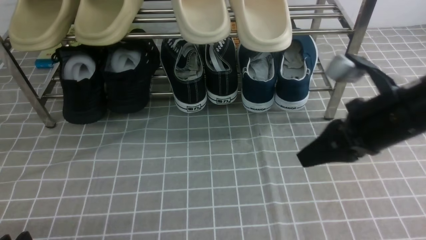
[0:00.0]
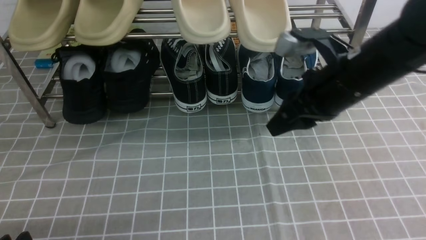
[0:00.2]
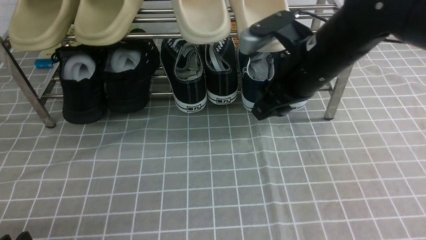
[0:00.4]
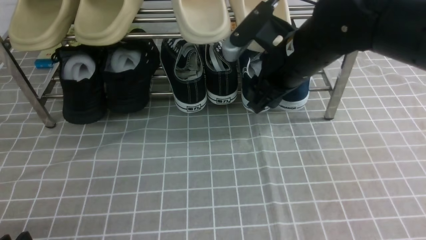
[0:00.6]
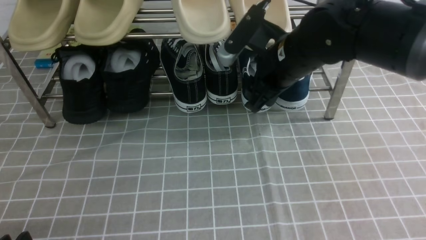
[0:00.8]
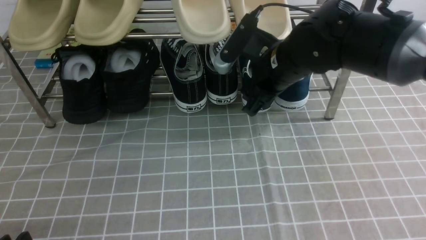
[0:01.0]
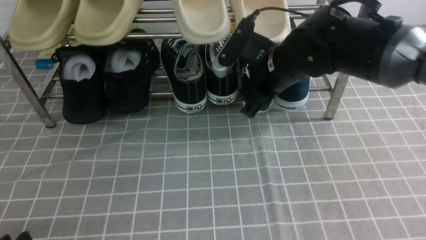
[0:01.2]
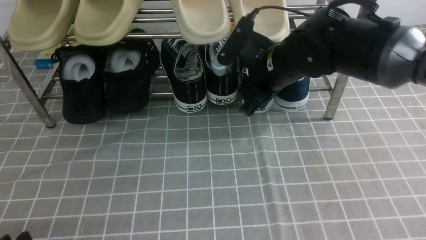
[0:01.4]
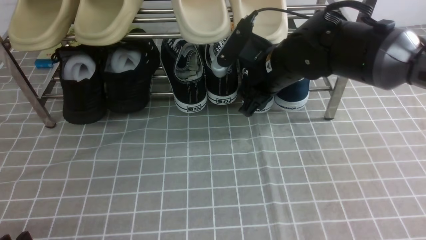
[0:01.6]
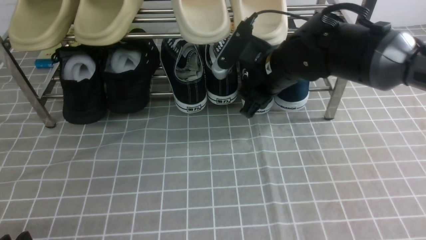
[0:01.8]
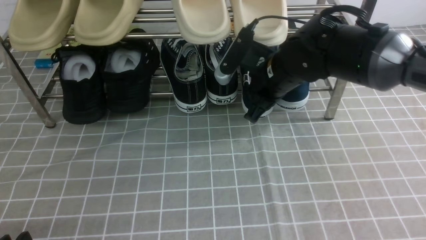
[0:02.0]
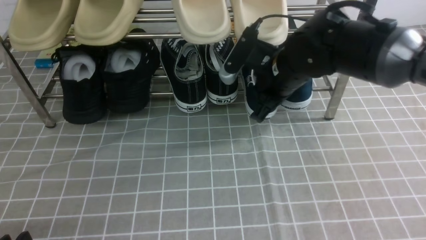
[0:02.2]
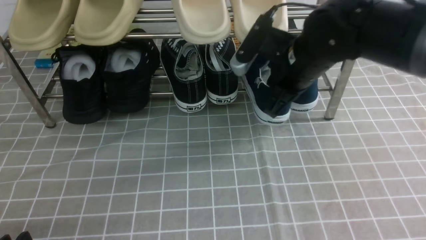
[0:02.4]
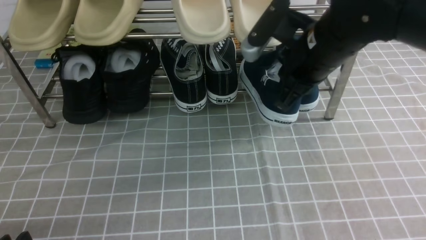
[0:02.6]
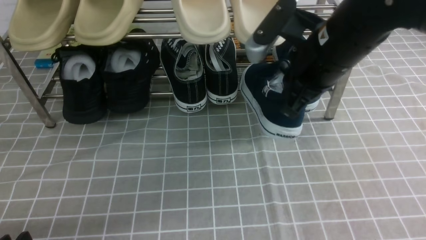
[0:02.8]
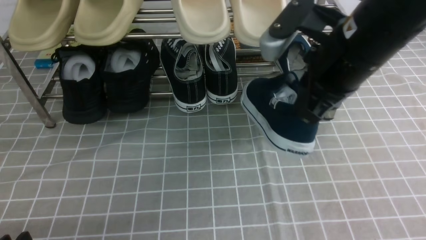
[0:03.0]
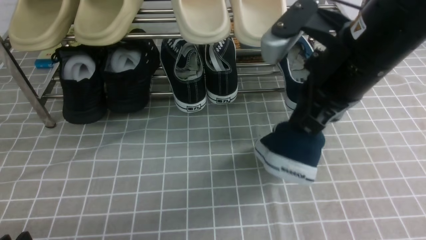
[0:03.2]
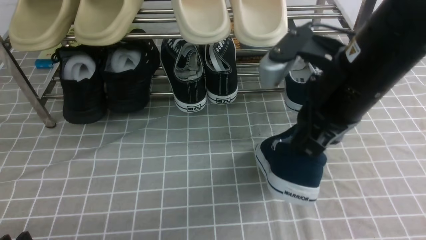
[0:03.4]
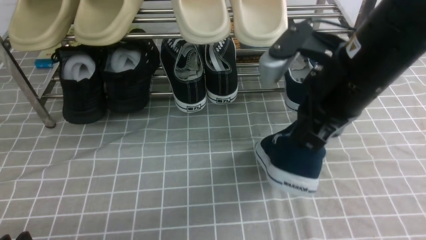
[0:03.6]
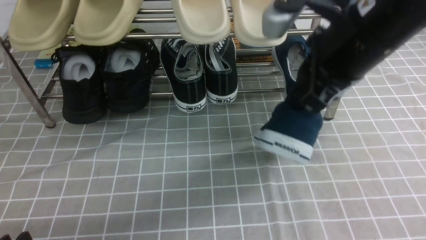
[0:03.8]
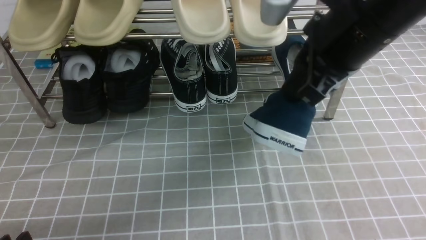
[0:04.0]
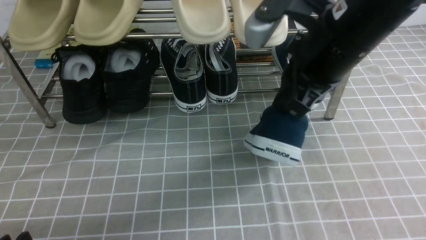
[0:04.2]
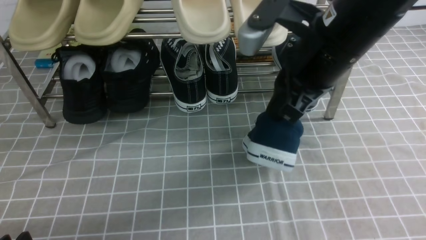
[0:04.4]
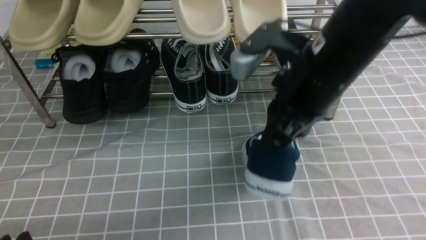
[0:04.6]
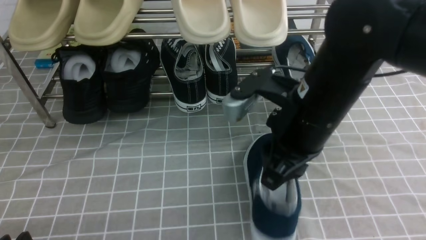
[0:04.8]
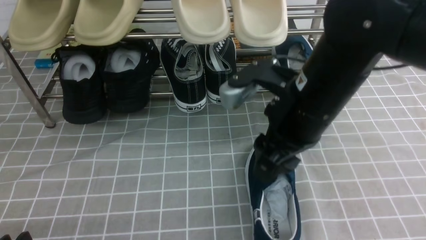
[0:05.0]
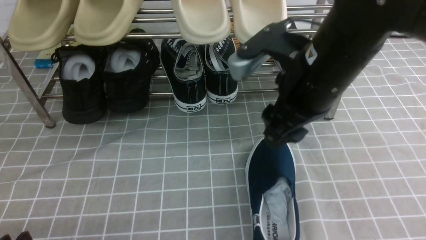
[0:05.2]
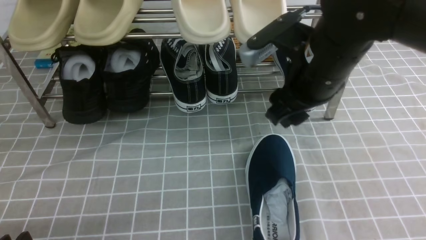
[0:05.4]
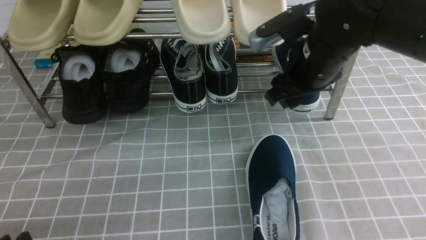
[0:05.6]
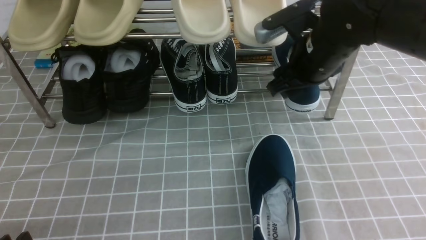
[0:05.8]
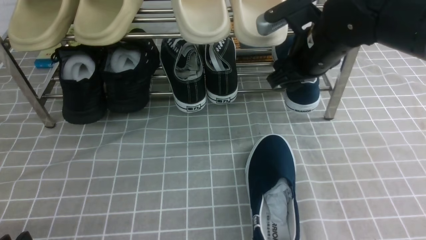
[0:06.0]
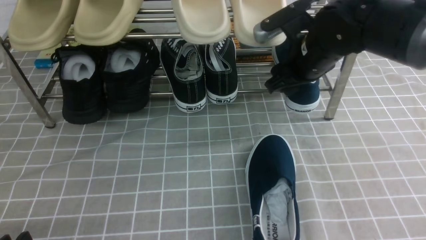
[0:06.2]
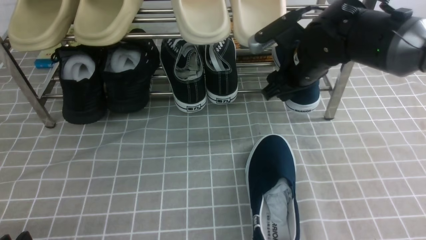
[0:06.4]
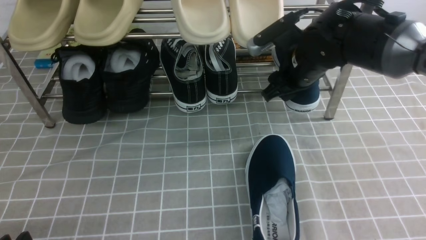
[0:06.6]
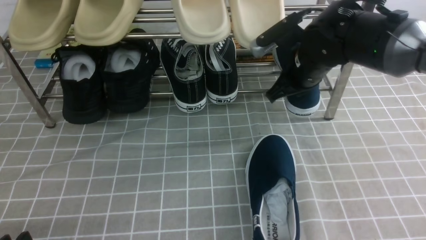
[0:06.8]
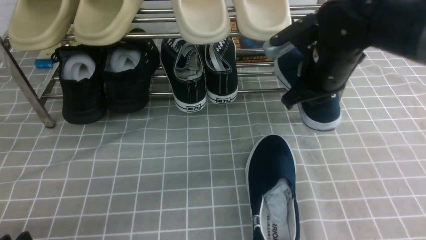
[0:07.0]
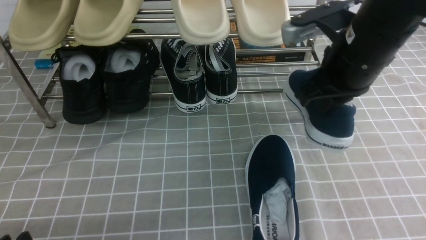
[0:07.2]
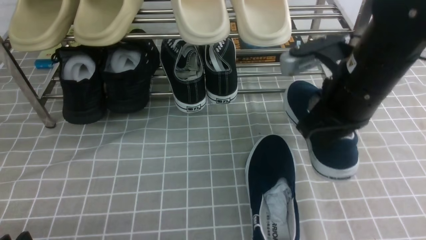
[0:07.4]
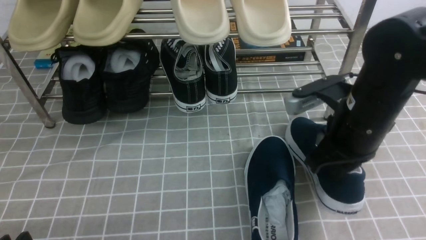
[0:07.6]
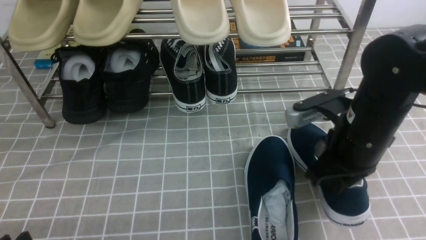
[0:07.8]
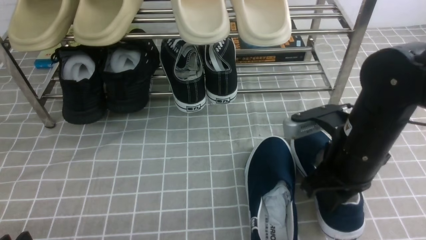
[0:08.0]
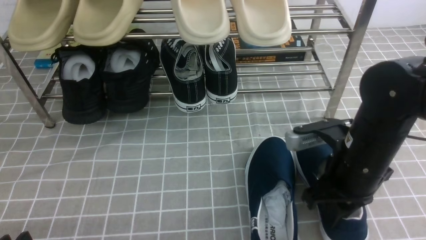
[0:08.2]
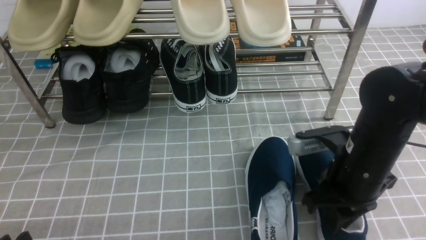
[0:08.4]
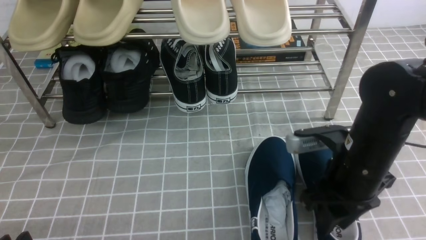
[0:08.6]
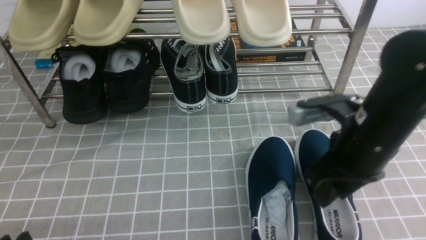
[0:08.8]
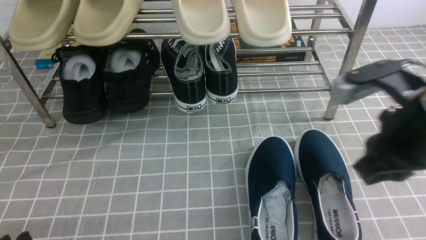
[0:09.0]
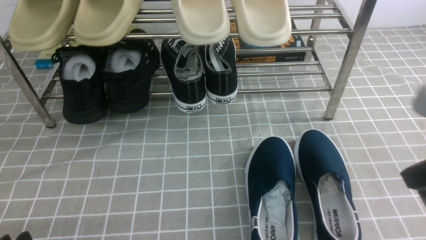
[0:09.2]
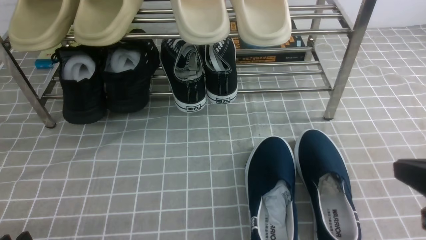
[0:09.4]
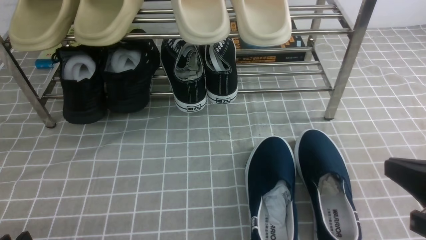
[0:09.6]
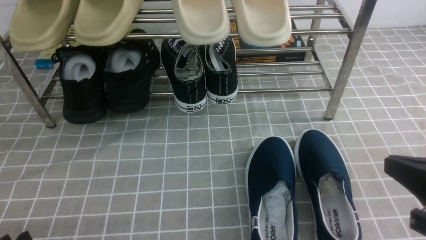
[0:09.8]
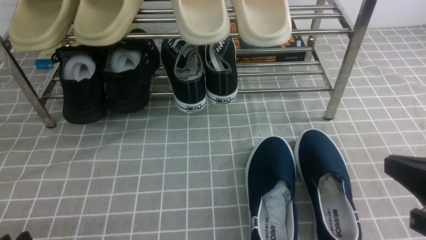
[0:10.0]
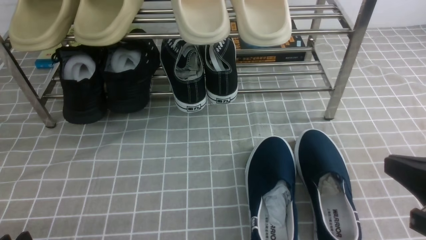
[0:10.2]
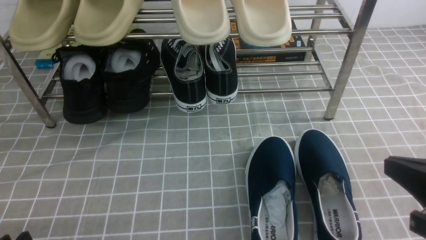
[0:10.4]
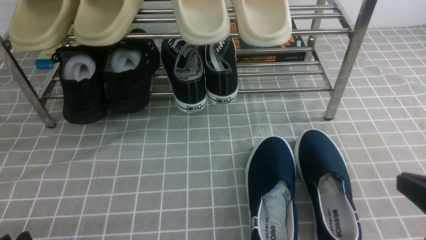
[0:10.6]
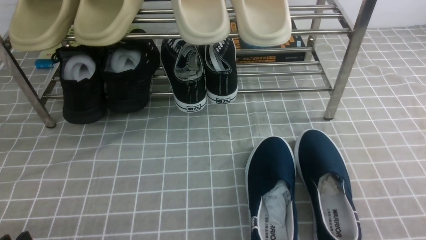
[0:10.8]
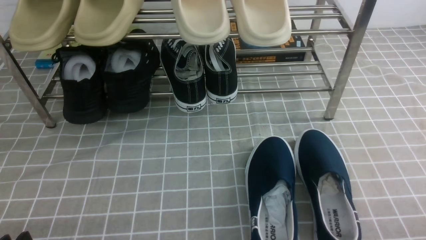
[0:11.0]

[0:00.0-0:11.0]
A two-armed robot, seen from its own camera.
Step, 0:00.0 to 0:02.0: use the right arm to clamp a shoe on the right side of the shoe rack.
Step, 0:02.2 to 0:05.4: use the right arm to take out the clamped shoe from the shoe rack and put it down.
Step, 0:05.6 to 0:07.0: use the right arm to clamp a shoe on the right side of the shoe rack.
Step, 0:07.2 to 0:08.8: use the right arm to take out the clamped shoe from the shoe rack and put it down.
0:00.0 to 0:01.6: The right gripper shifts roughly 15 cm forward and to the left, and opens up.
0:01.6 to 0:03.2: The right gripper goes approximately 15 cm backward and upward, and closes its fingers.
0:03.2 to 0:04.8: The right gripper shifts by roughly 5 cm, and opens up.
0:04.8 to 0:06.2: The right gripper shifts roughly 15 cm forward, and opens up.
0:06.2 to 0:07.8: The right gripper travels backward by roughly 15 cm, and closes.
0:07.8 to 0:09.4: The right gripper shifts approximately 15 cm backward and to the right, and opens and closes again.
0:09.4 to 0:11.0: The right gripper moves downward, to the right and backward, roughly 15 cm.

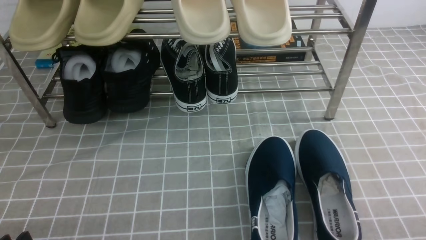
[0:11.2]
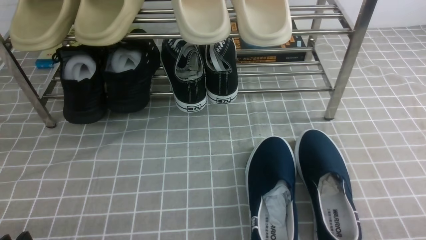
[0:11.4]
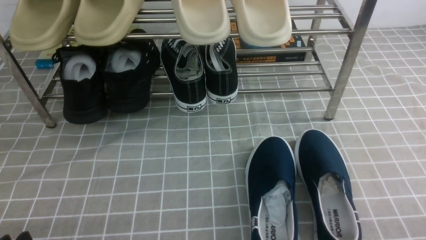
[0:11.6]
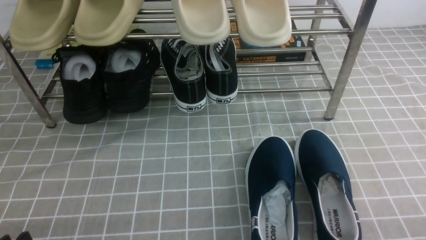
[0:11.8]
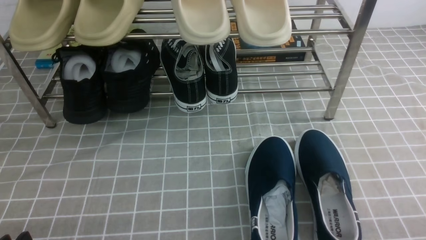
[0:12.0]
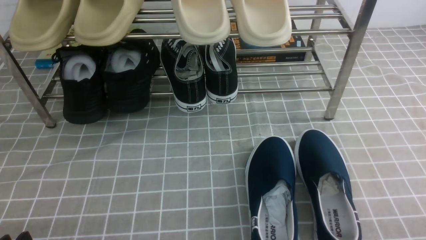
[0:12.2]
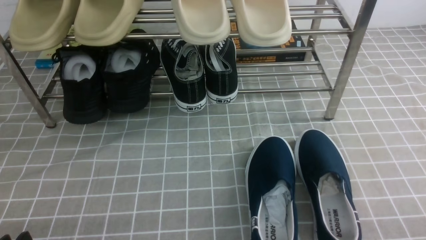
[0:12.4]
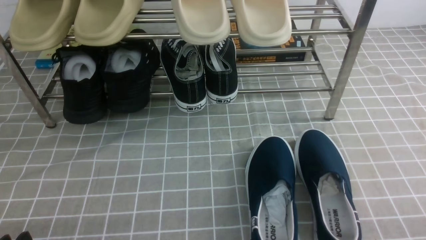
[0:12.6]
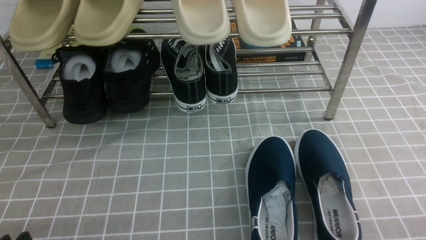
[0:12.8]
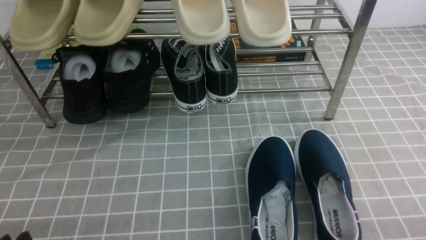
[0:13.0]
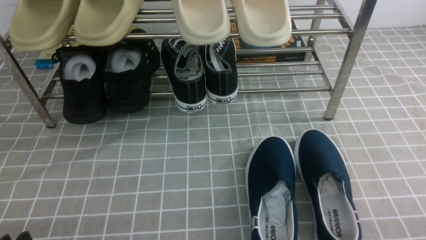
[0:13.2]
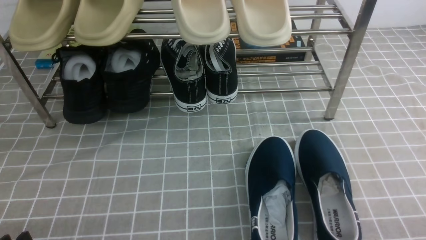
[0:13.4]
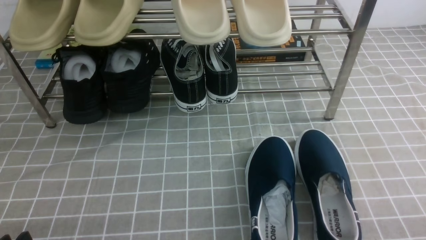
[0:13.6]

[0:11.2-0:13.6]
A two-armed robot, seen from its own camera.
0:11.2 to 0:13.6: The two grippers keep their place.

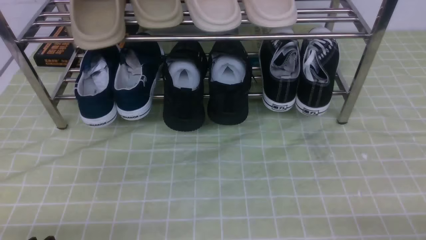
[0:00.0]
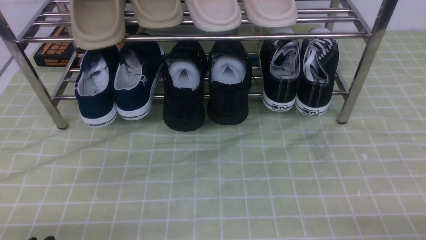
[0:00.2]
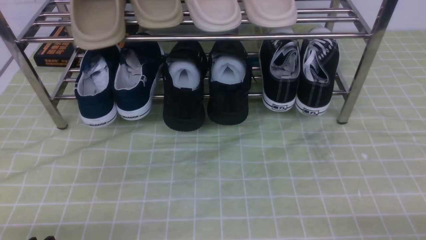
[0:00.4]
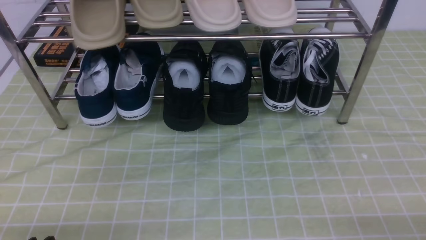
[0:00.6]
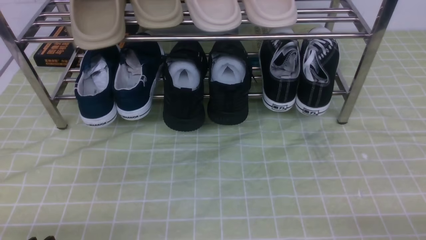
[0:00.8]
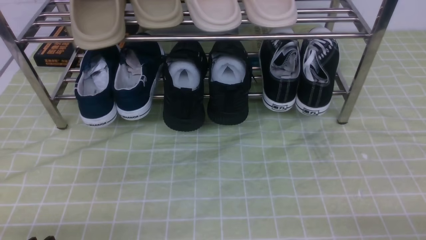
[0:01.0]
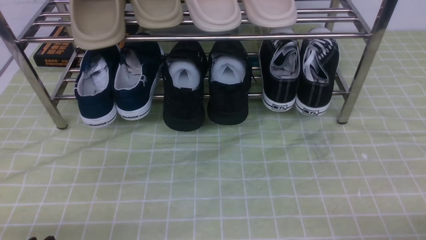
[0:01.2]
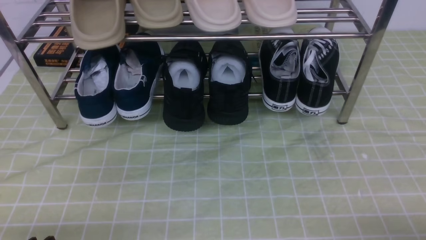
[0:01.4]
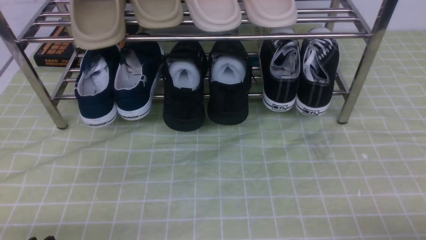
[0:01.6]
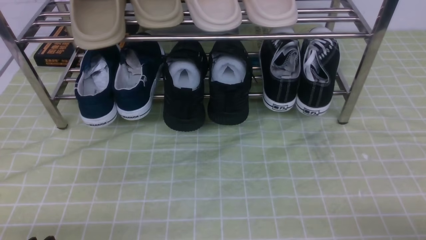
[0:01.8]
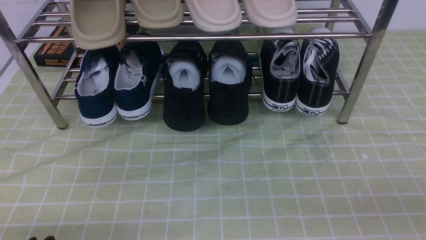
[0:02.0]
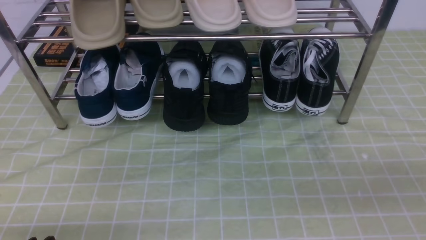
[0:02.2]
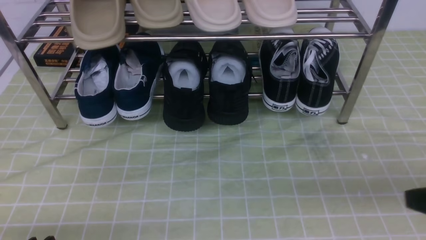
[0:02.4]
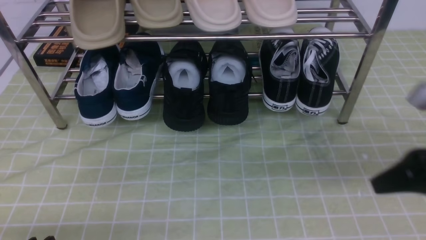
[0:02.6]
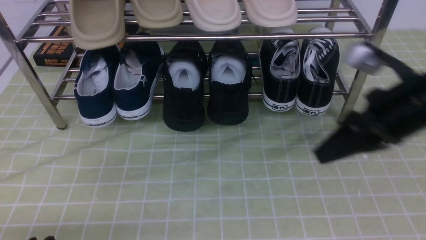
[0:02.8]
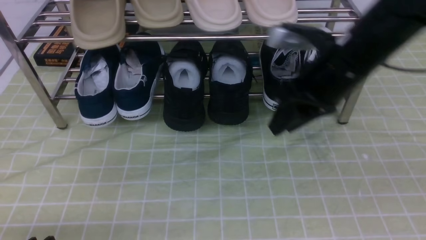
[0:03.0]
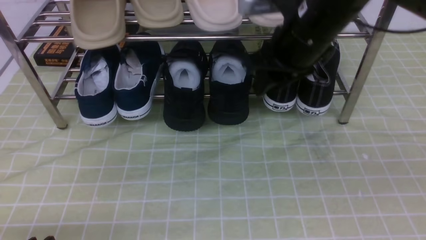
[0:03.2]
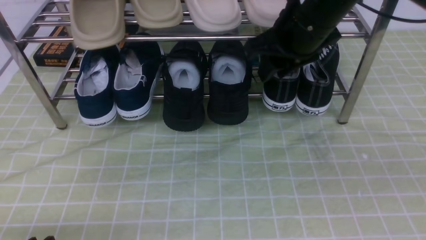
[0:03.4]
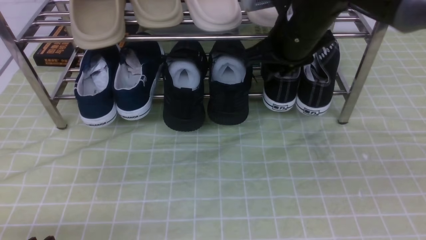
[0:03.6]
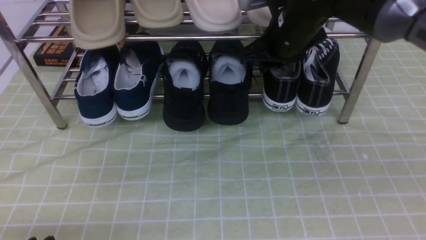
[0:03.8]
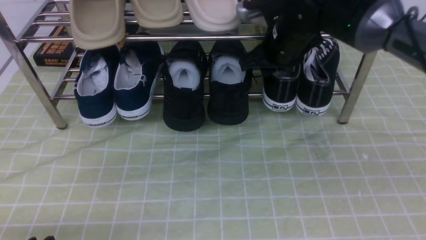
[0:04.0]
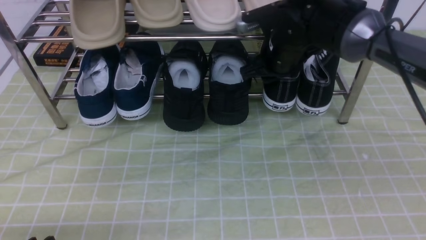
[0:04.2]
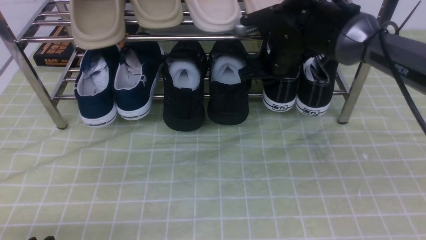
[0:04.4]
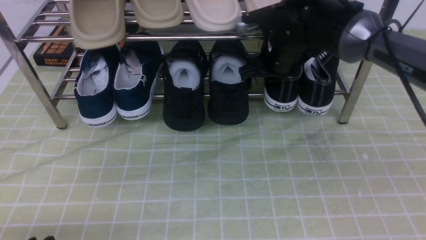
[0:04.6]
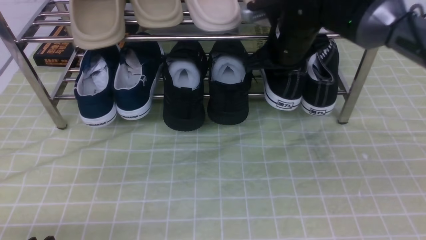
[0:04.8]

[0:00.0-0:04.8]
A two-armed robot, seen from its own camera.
0:01.6 to 0:03.2: The right gripper shifts about 40 cm forward, to the left and upward, and closes, then reopens.
0:03.2 to 0:04.8: The right gripper heads forward and downward, covering some 10 cm, and closes its fingers.
